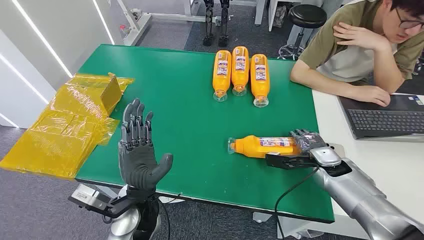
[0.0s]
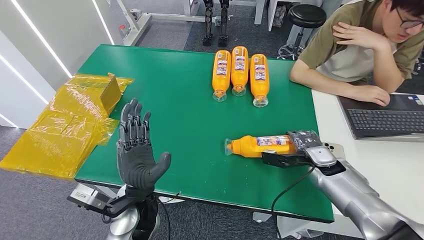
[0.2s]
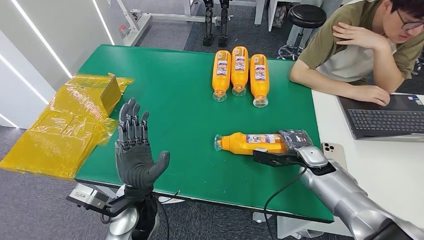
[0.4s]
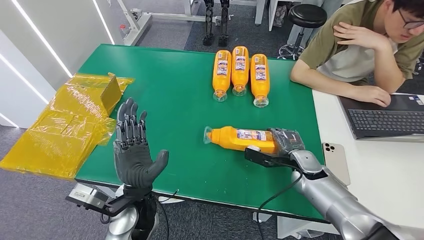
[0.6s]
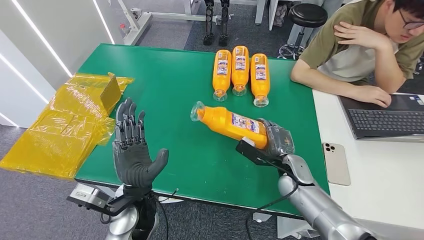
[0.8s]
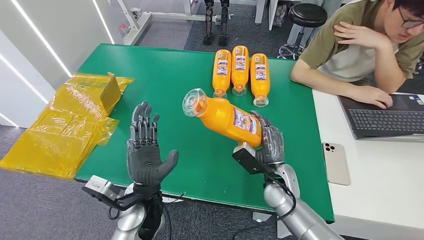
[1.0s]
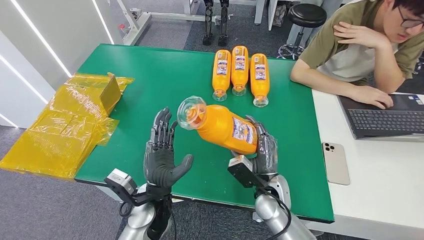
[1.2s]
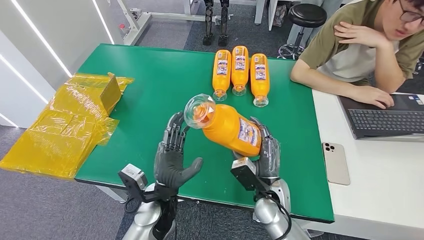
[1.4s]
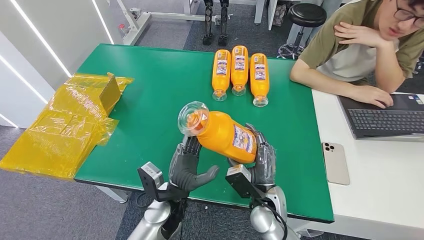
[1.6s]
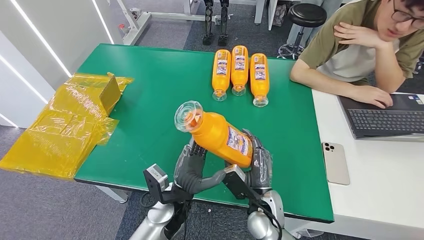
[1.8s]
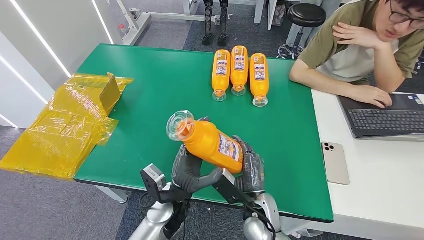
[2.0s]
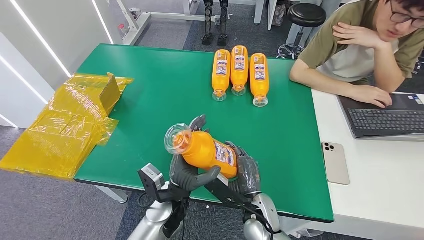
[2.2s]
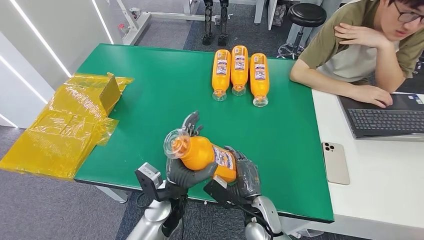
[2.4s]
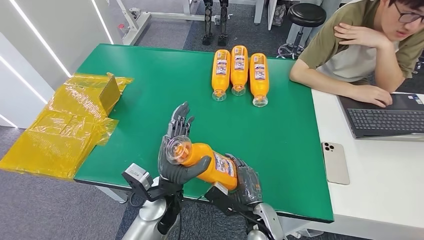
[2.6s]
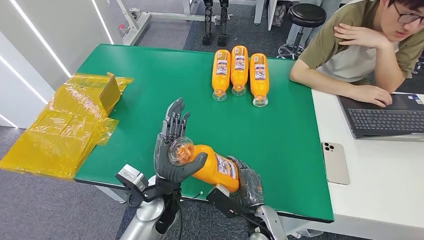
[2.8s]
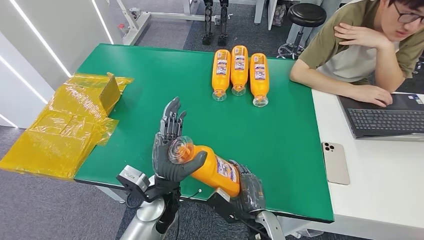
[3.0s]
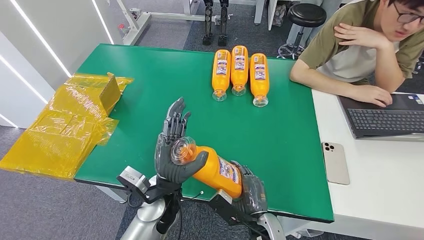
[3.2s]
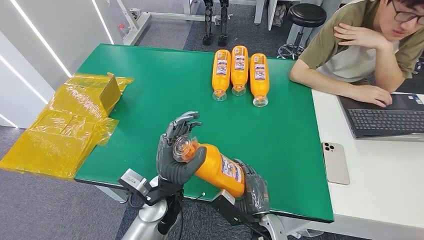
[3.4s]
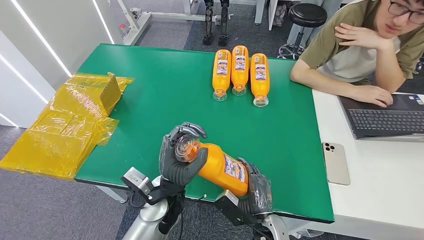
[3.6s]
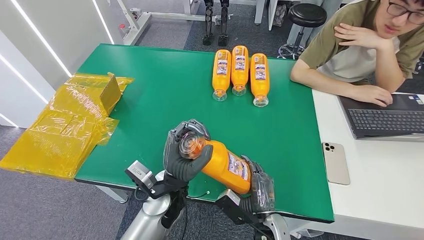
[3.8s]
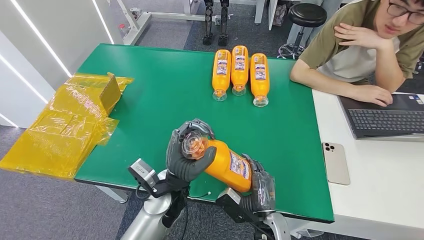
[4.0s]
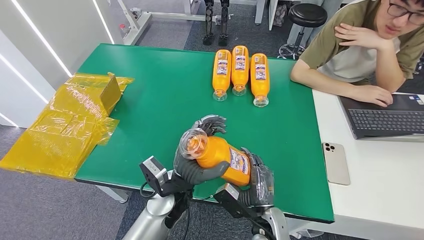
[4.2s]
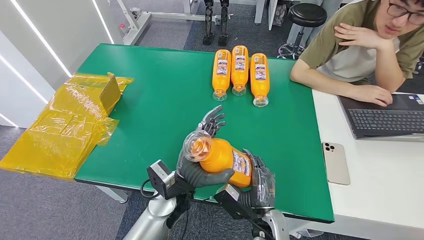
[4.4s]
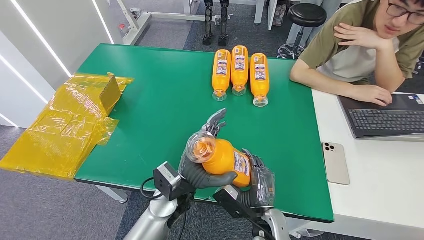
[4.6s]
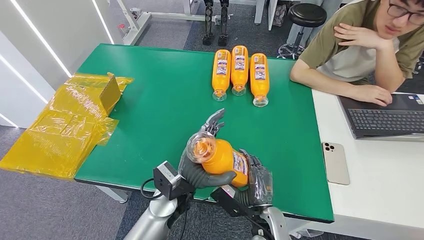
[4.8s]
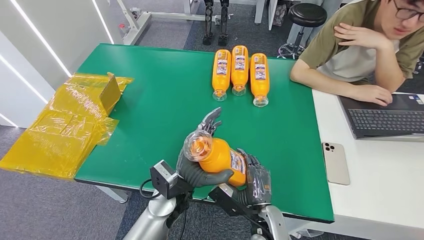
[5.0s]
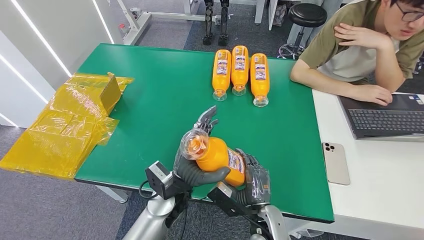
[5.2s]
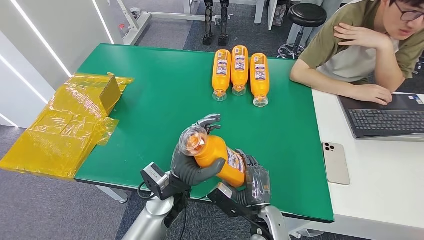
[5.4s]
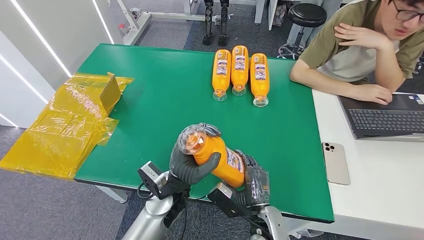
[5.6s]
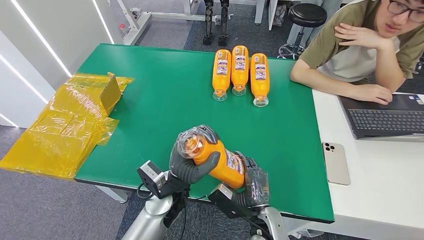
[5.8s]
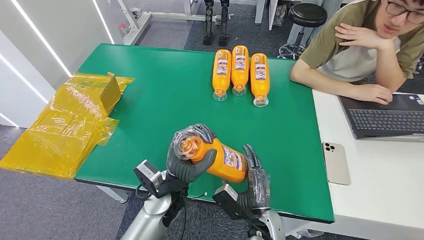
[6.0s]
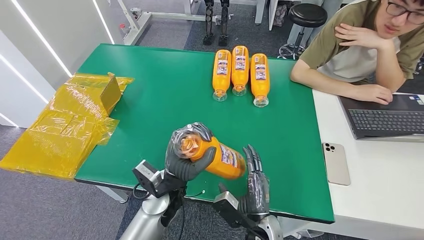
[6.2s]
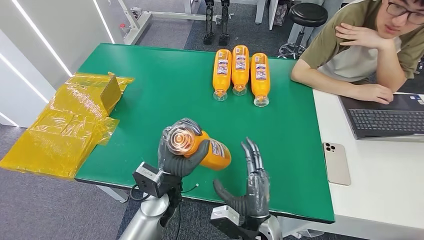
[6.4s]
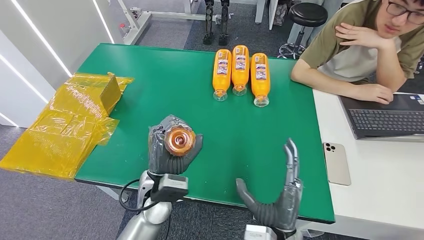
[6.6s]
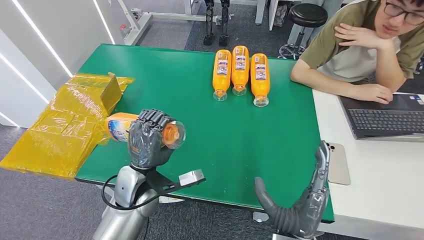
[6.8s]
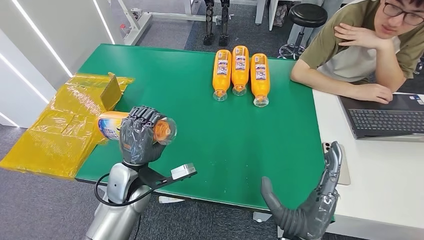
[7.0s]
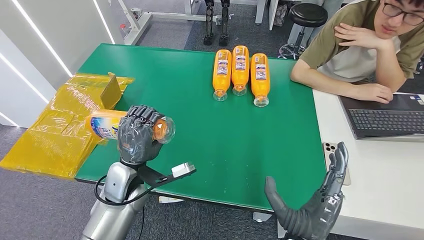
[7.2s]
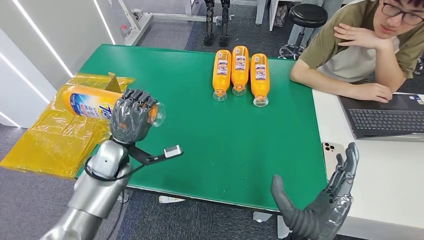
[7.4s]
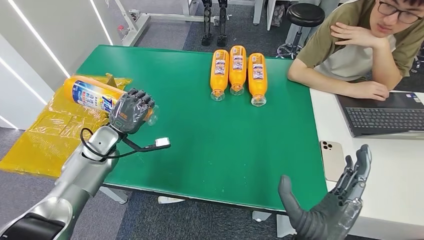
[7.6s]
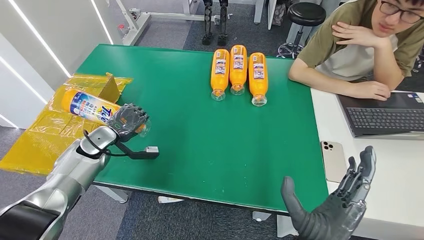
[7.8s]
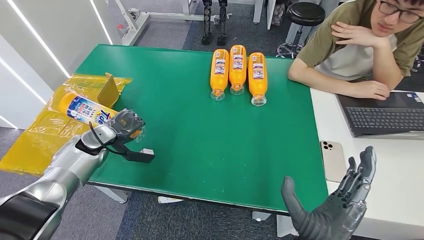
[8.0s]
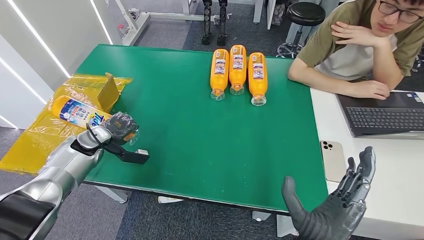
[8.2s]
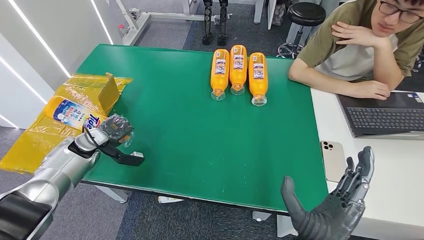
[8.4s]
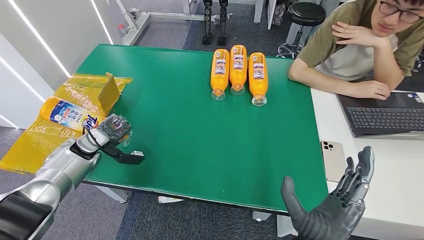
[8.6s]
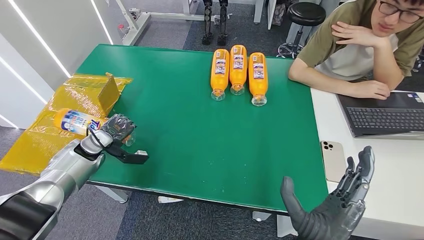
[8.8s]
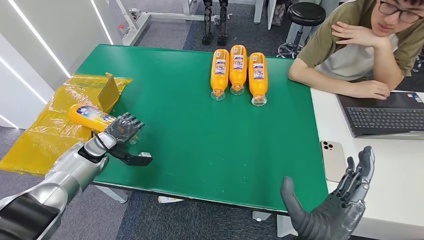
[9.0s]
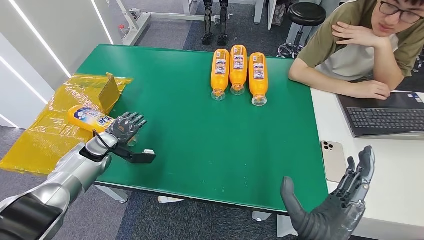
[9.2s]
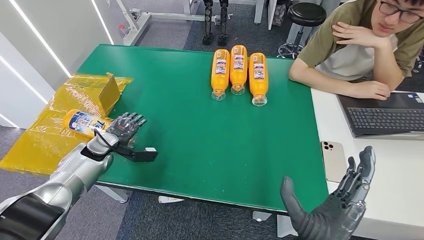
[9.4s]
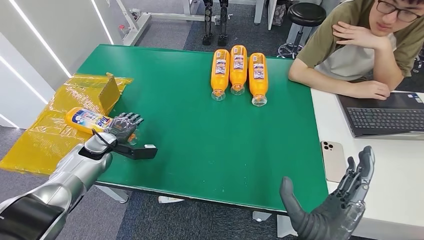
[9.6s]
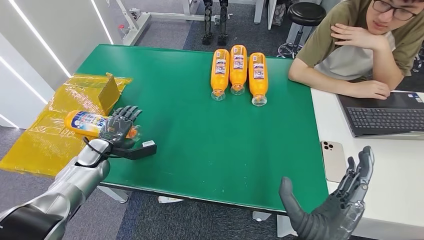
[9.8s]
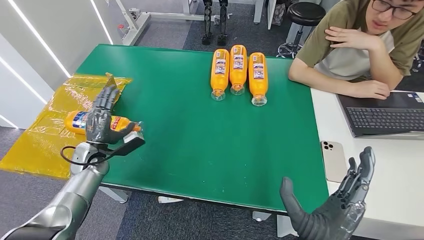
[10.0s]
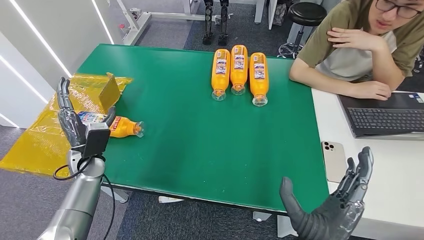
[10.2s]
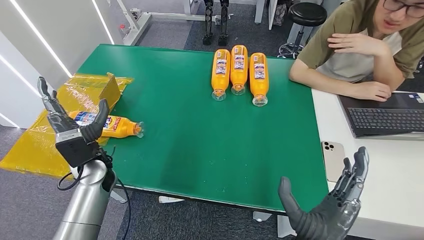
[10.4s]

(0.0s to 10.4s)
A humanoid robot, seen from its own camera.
Step, 0.0s - 3.2s: Pick up the bottle from the table.
Step, 3.4s - 10.4s: Turn the bottle to the front side.
1.4s - 3.0s: The right hand shifts roughly 10 cm backward.
4.4s - 6.0s: The hands move only a little.
6.0s - 7.4s: The right hand heads upward and backward, covering roughly 10 cm. Meanwhile the left hand shifts approximately 20 cm to the left and forward.
9.0s - 10.4s: The left hand goes approximately 10 cm to the right and backward.

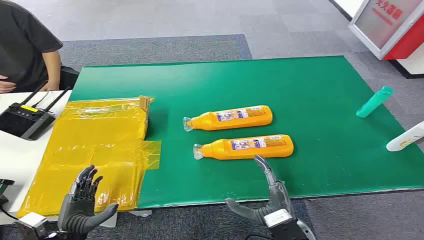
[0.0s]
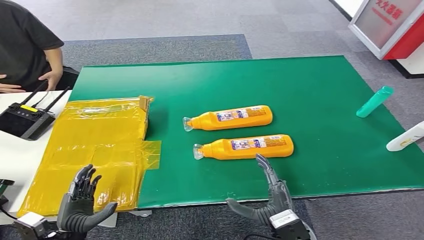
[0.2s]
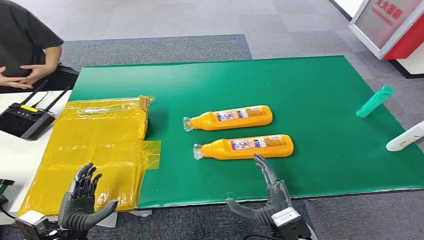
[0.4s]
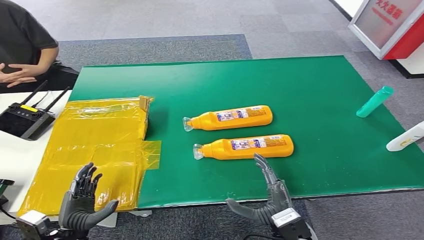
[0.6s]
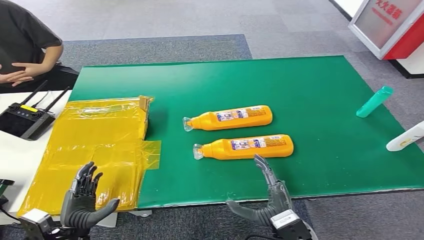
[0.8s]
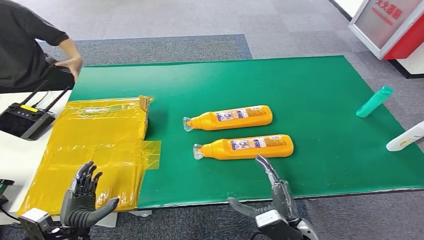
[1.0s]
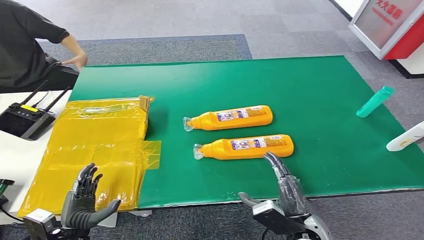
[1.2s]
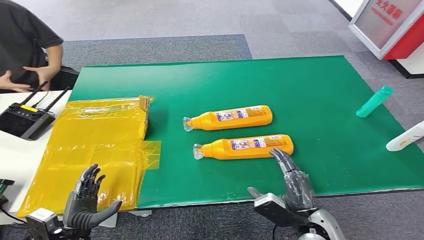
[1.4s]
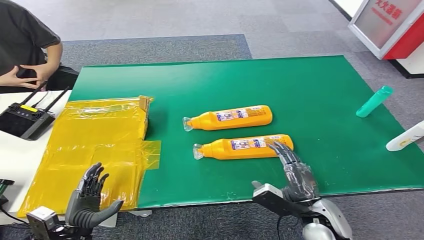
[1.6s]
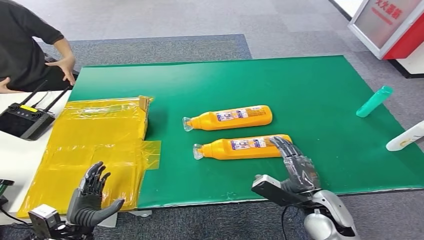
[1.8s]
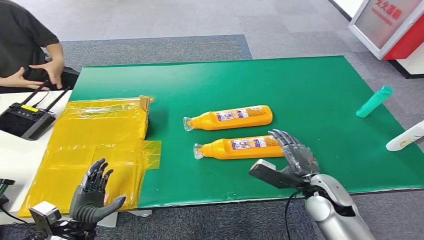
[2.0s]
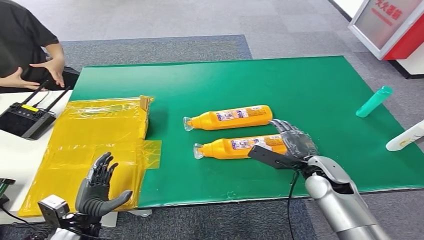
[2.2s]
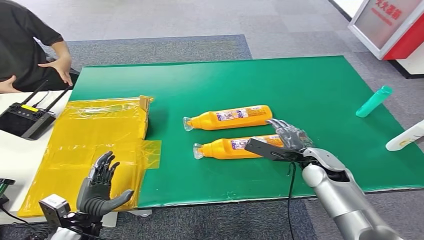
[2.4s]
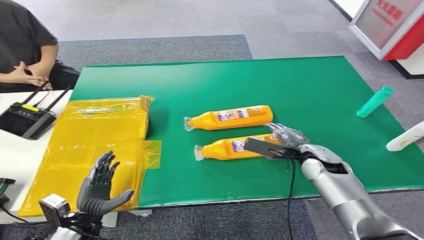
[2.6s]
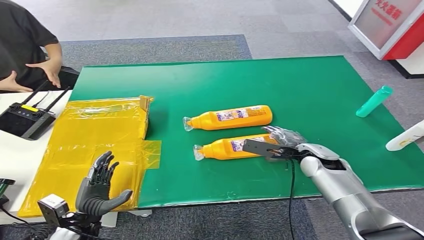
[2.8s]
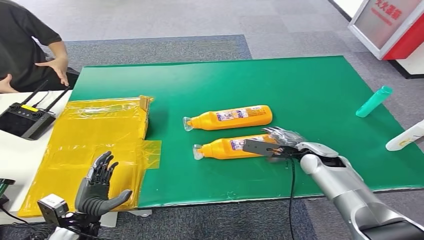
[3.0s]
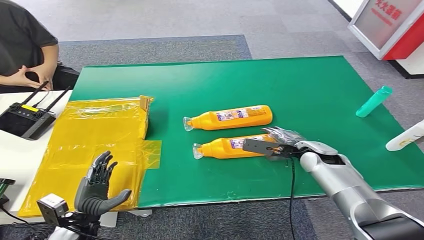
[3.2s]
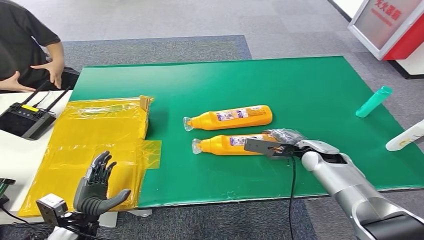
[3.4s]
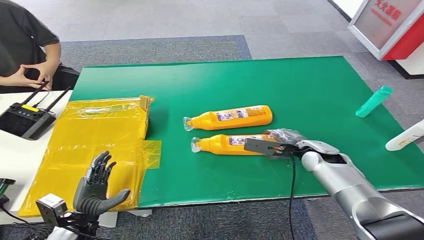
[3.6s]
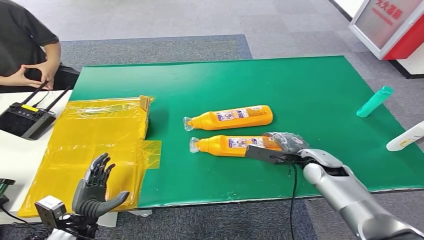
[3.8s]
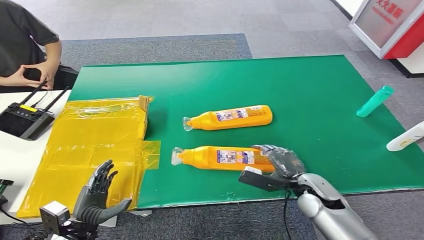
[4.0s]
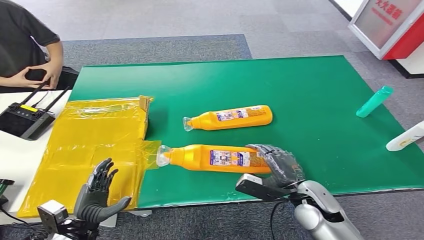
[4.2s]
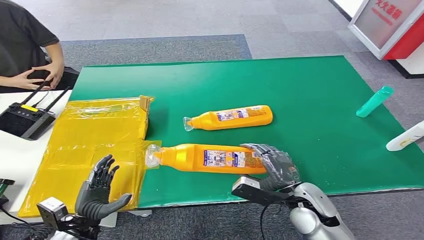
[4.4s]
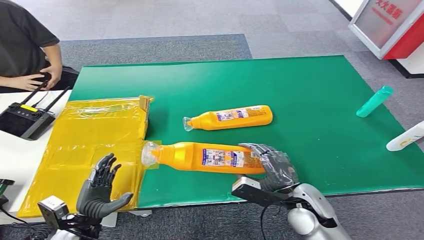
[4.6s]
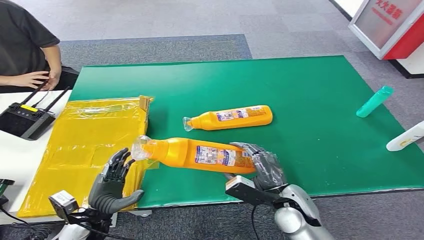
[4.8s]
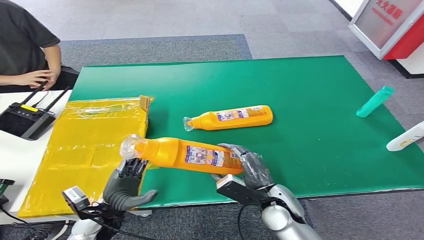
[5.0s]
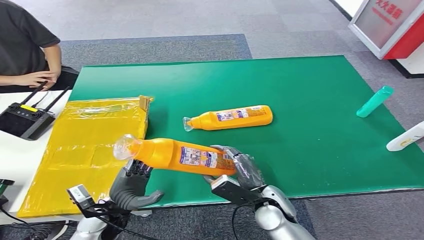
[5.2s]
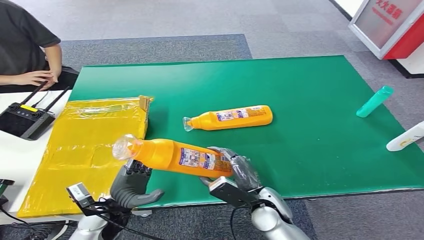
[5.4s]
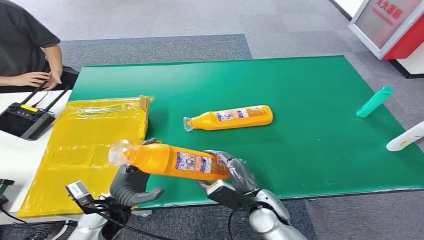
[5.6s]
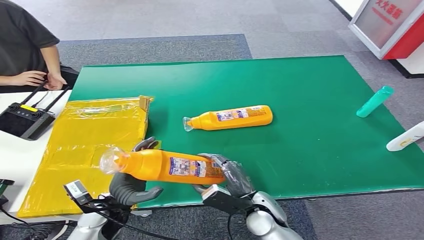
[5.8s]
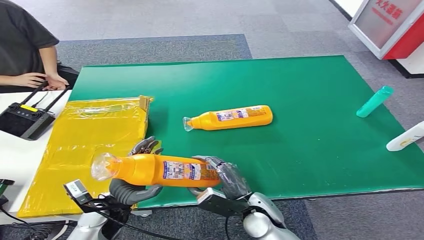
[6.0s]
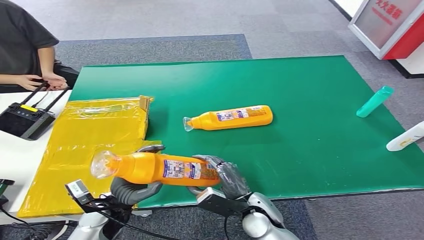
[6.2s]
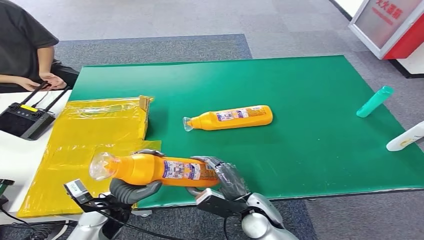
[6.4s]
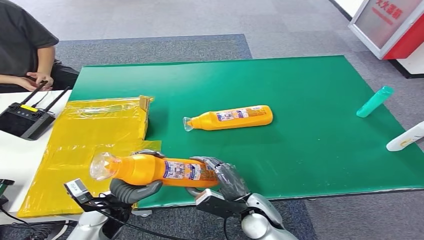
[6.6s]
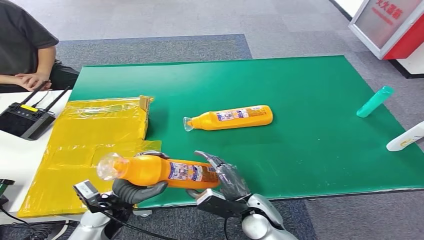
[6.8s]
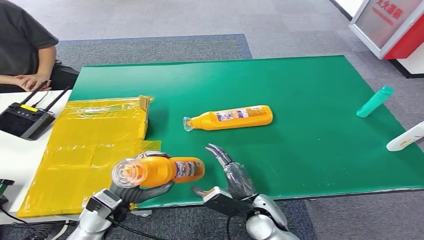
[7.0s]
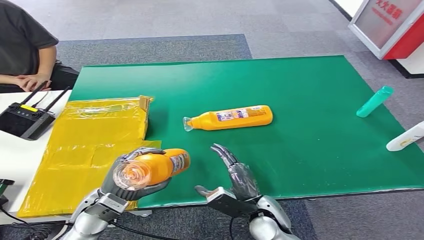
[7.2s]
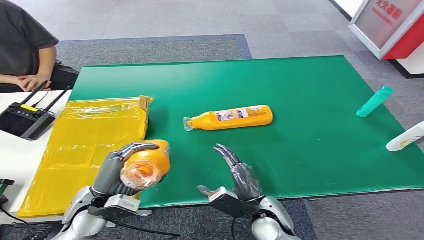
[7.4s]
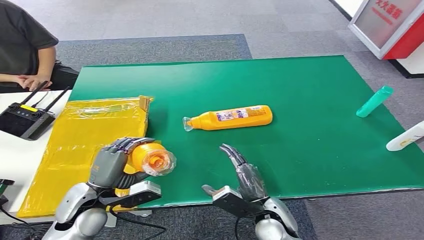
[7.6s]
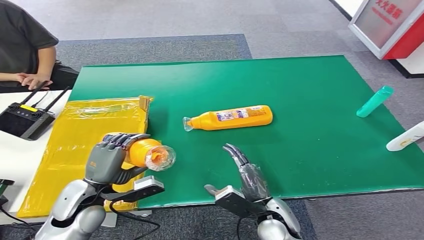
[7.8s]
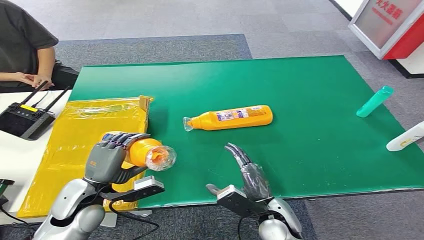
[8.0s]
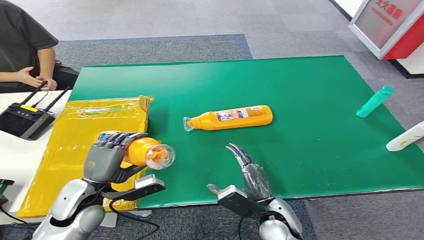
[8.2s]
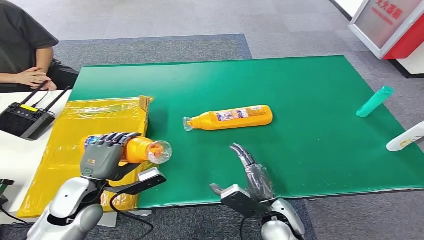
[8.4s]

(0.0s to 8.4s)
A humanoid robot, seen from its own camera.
Step, 0.0s - 5.0s: Pick up the bottle from the table.
1.4s - 2.8s: The right hand moves forward, some 20 cm.
2.8s - 4.2s: The right hand moves backward, some 15 cm.
4.2s - 5.6s: The left hand moves to the right and forward, roughly 10 cm. The right hand shifts approximately 10 cm to the left.
7.0s - 8.4s: The left hand is displaced upward by roughly 5 cm.
